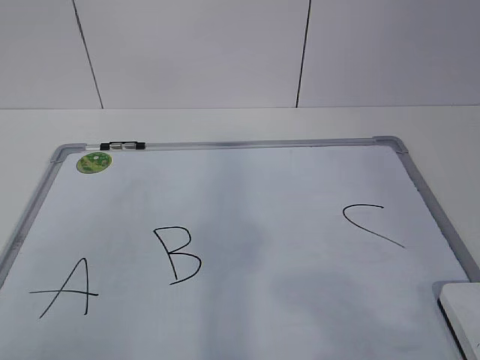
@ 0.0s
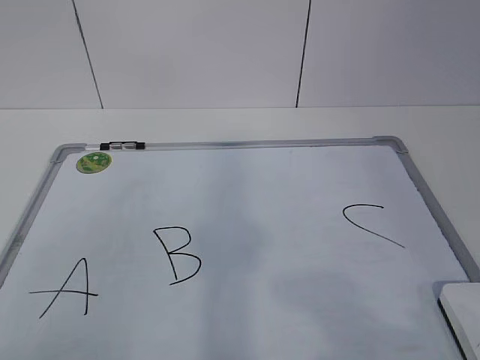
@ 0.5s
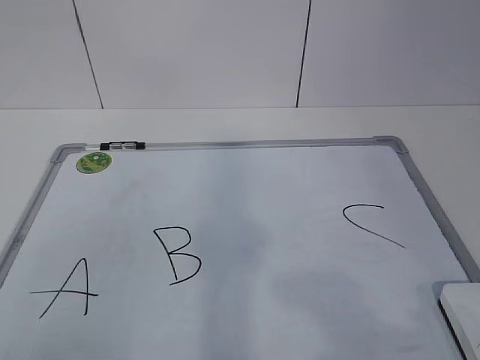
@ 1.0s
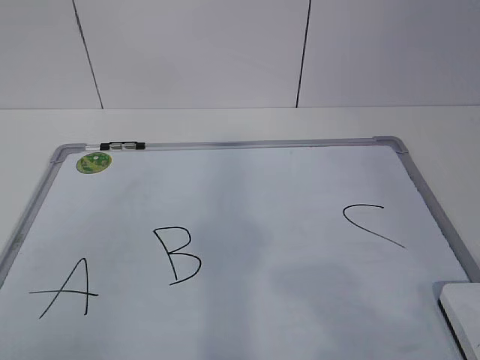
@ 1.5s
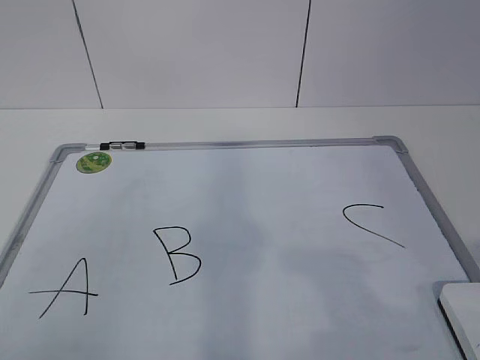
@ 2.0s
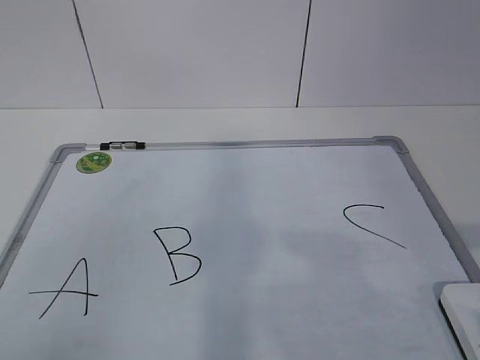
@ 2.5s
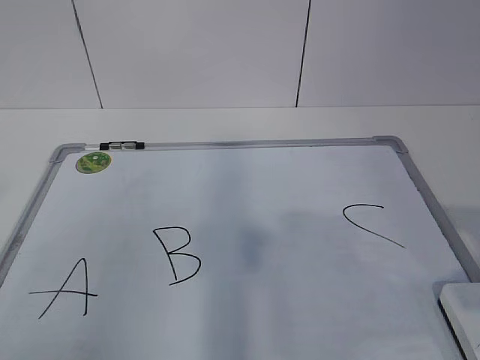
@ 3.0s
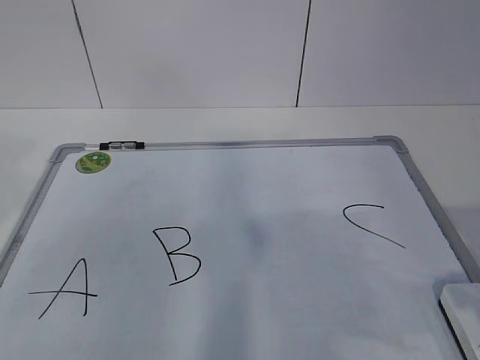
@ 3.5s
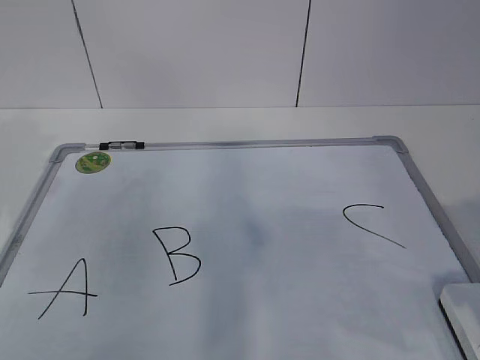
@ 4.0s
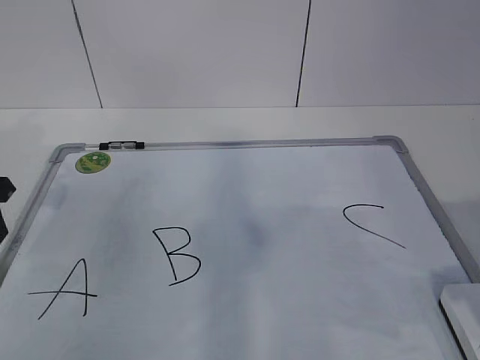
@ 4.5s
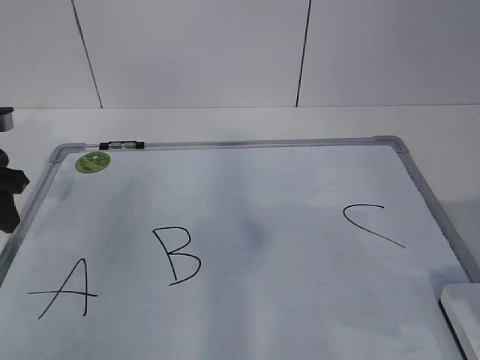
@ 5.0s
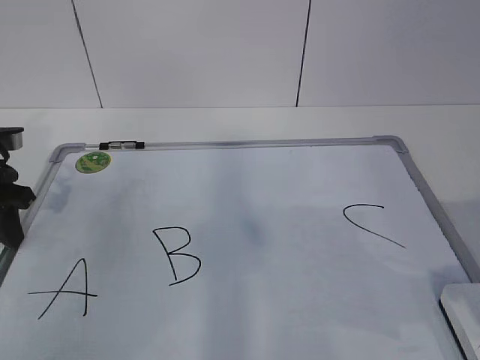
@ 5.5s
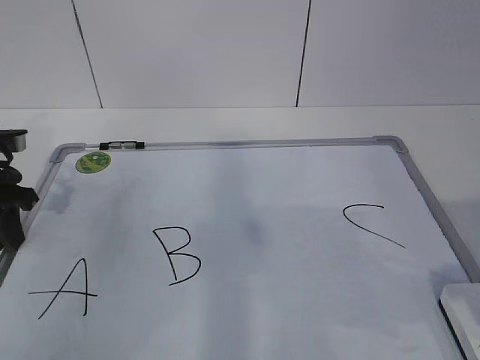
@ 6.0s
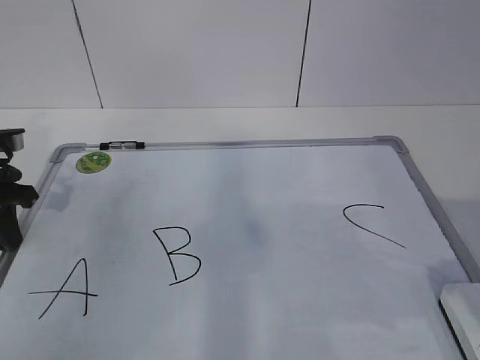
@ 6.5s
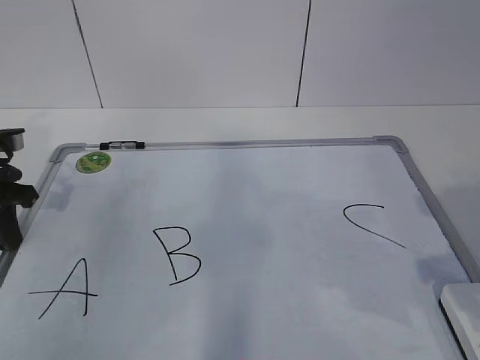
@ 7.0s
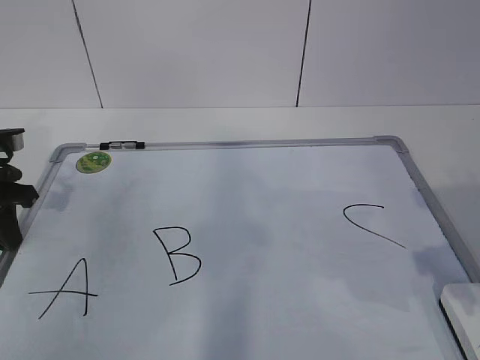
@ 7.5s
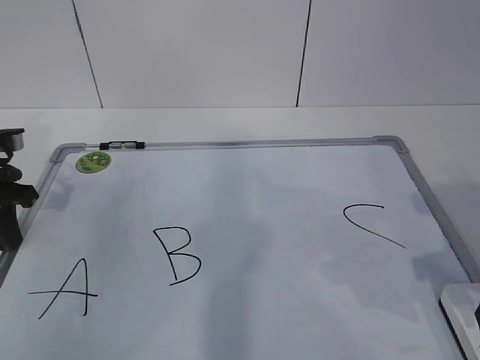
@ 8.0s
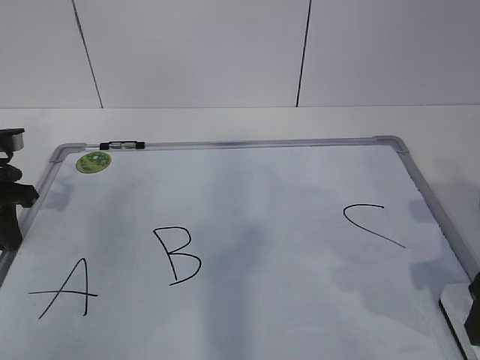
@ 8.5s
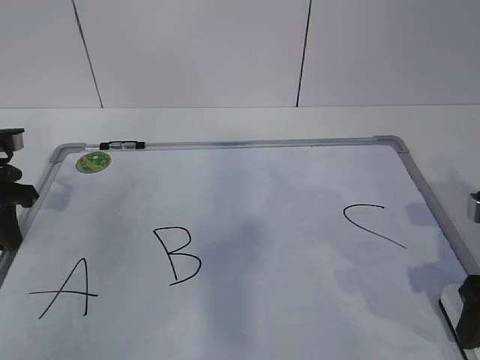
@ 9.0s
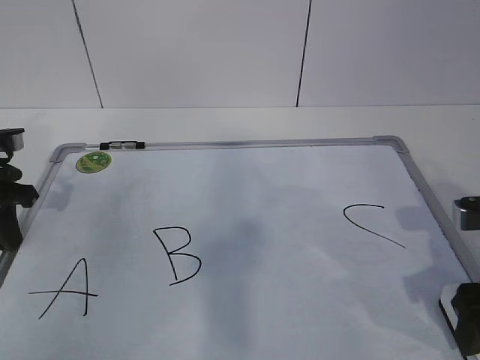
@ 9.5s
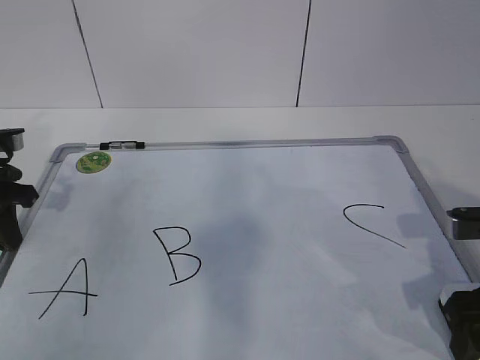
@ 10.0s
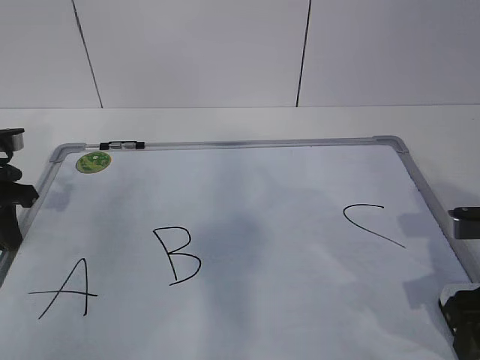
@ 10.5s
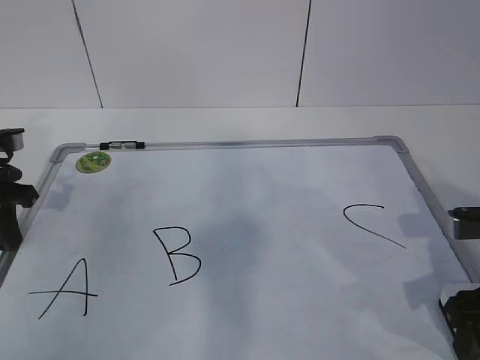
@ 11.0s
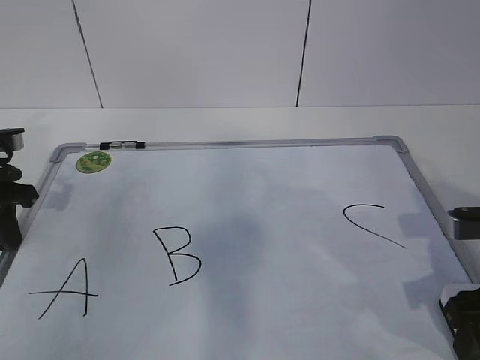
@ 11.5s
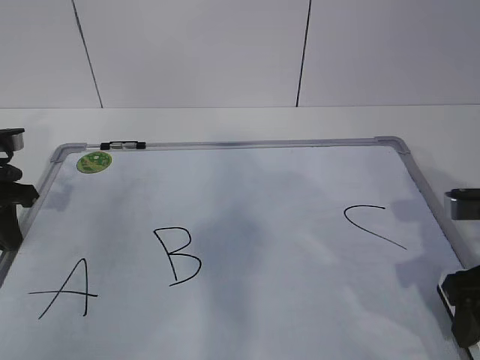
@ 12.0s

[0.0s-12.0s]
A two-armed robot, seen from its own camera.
Task of the whole recording: pick up the eraser on the blackboard and erase the letter "B".
Step, 0.0s to 5.0s: Hold the drawing board steady with your left hand.
2.0s to 4.0s: The left gripper heads forward, covering approximately 30 cm. Meanwhile the right gripper is displaced forward by roughly 10 cm.
4.0s to 6.0s: The left gripper travels downward and forward by some 10 cm, and closes its fingers.
8.0s to 10.0s: The right gripper shifts by about 5 cm.
10.0s to 12.0s: The right gripper closes up.

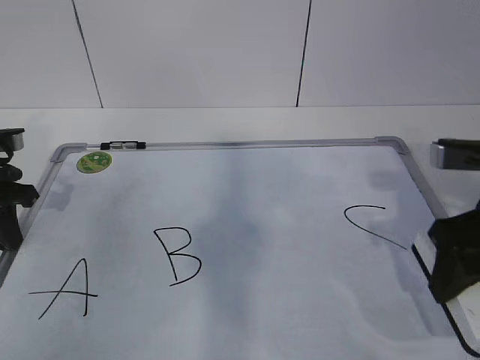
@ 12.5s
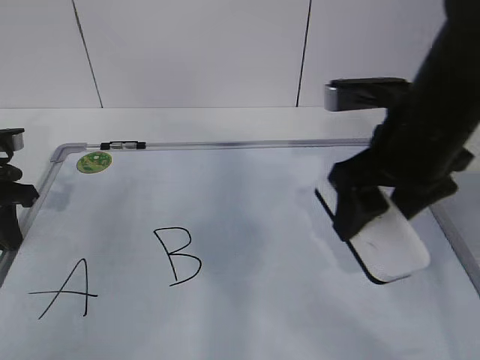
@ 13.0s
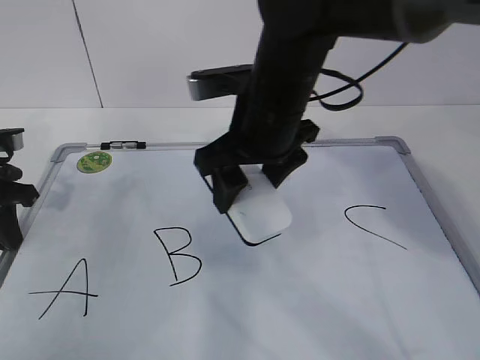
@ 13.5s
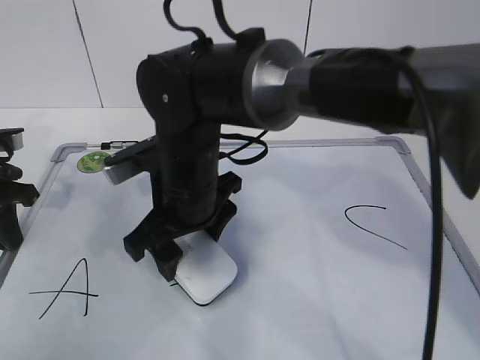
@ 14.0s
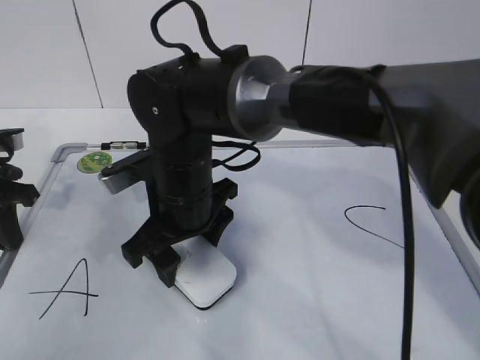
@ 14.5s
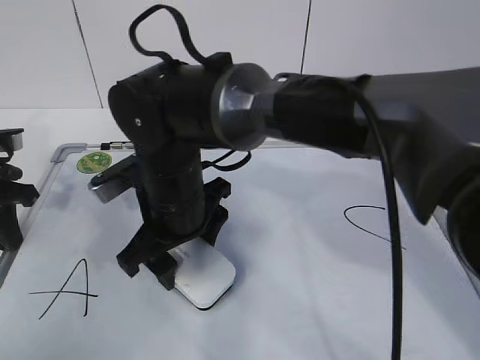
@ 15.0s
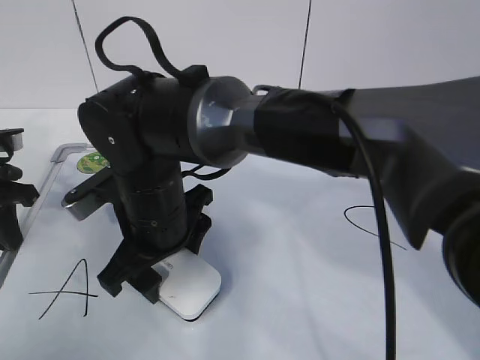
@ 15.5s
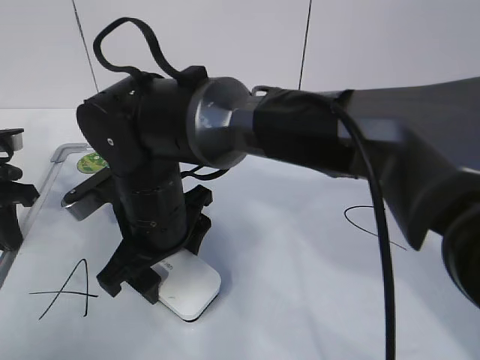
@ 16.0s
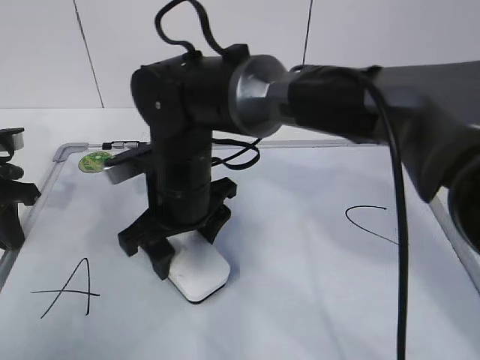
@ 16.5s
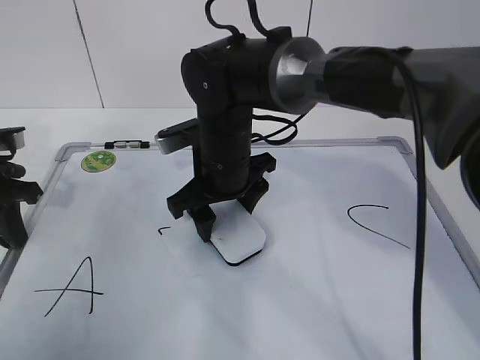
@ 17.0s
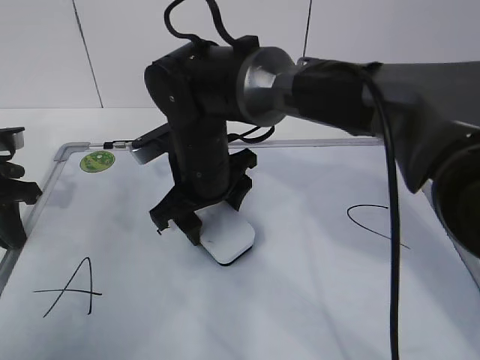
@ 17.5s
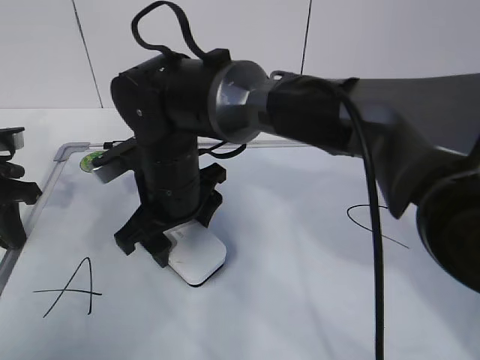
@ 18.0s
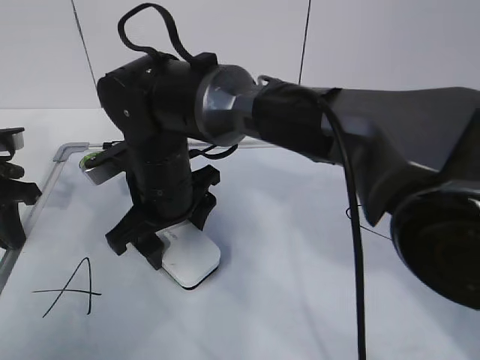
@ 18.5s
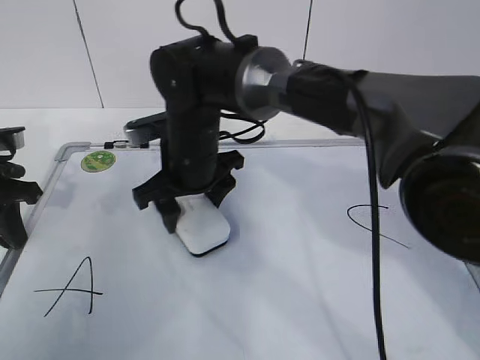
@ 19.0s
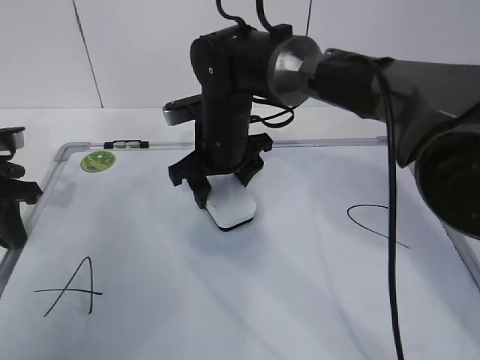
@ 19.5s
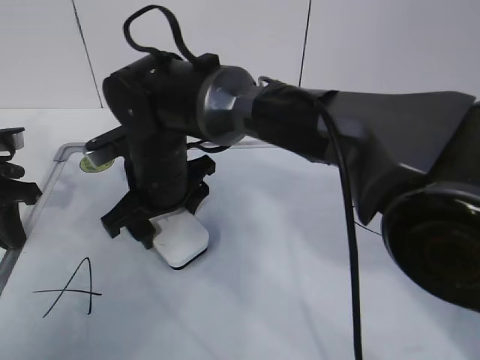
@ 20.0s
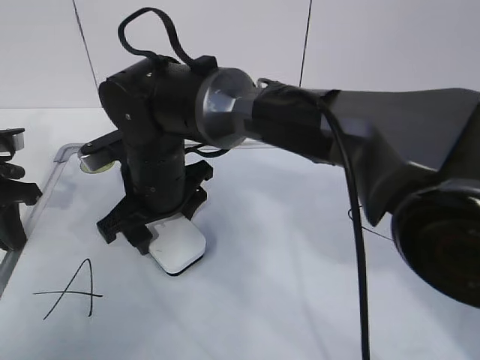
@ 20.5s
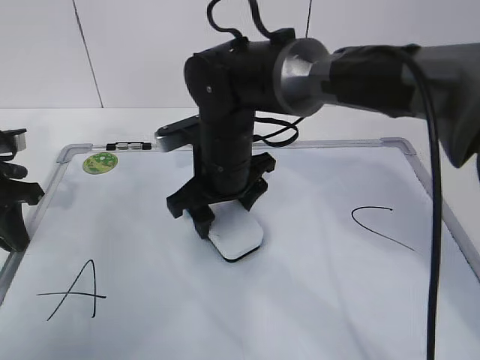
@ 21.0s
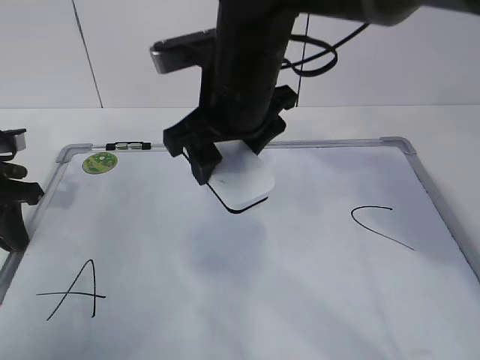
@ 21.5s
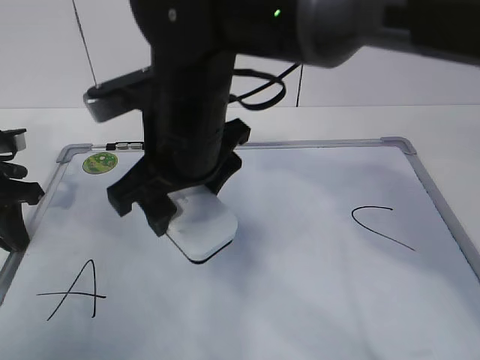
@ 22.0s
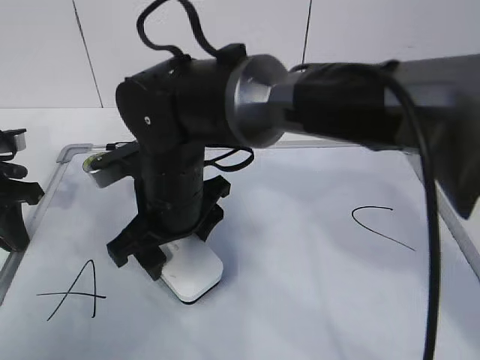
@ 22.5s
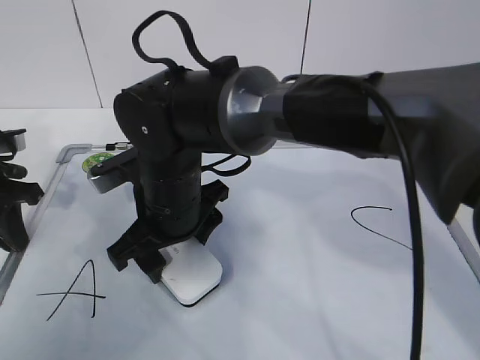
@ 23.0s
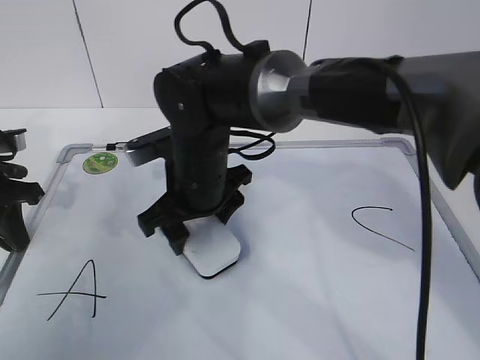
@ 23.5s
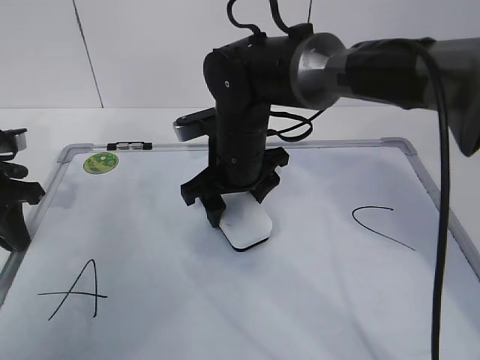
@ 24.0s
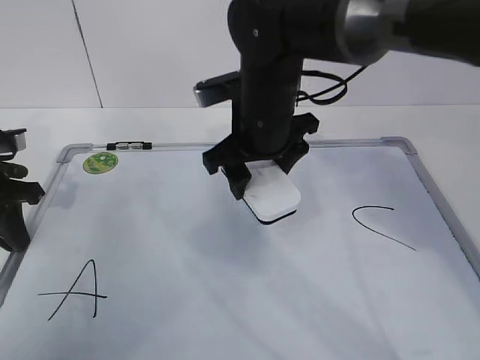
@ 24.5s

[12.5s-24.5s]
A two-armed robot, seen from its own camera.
Task of the whole recording: pick up the eraser on the blackboard and erase the letter "B".
Step, 12.5s to 20.0s: Erase the letter B with your right hand.
12.5s to 14.5s: The right gripper shifts about 30 cm to the left.
14.5s to 16.5s: The grippers stay close to where they were, moving slightly.
18.5s to 20.5s: The right gripper reaches some 10 cm forward, then returns.
20.5s to 22.5s: The right gripper reaches about 10 cm upward, then returns.
22.5s to 24.5s: The right gripper goes roughly 10 cm to the right and forward.

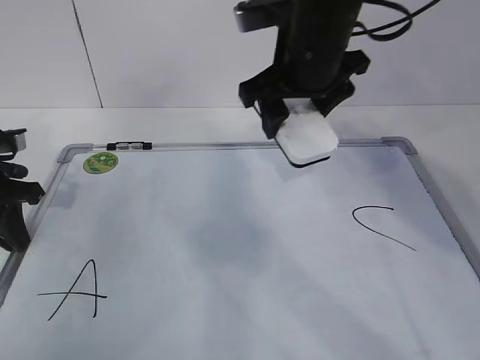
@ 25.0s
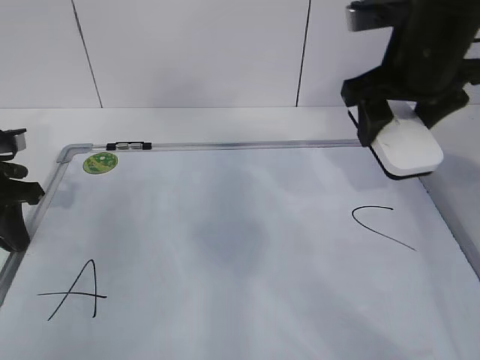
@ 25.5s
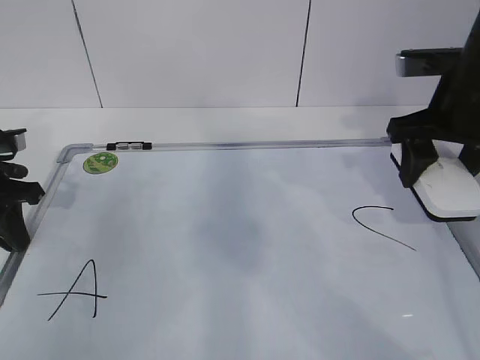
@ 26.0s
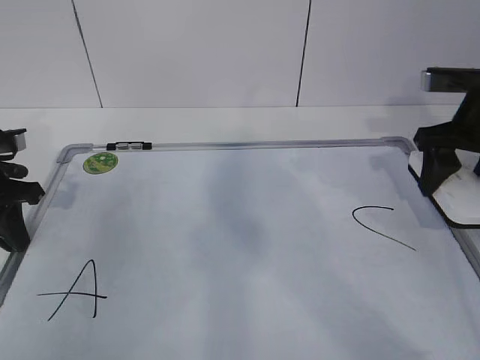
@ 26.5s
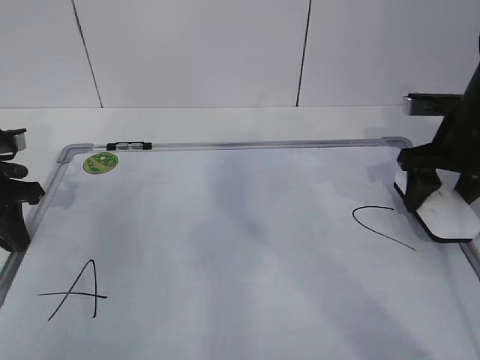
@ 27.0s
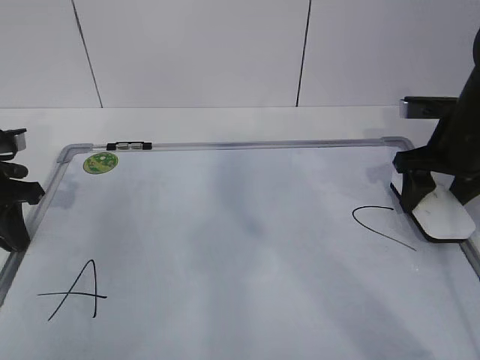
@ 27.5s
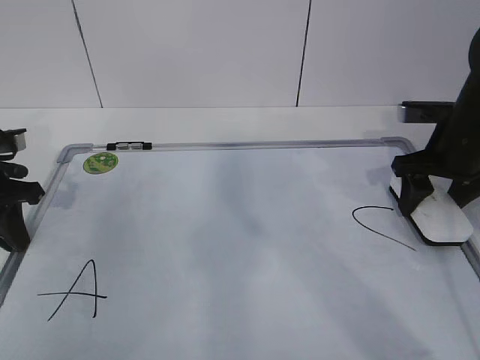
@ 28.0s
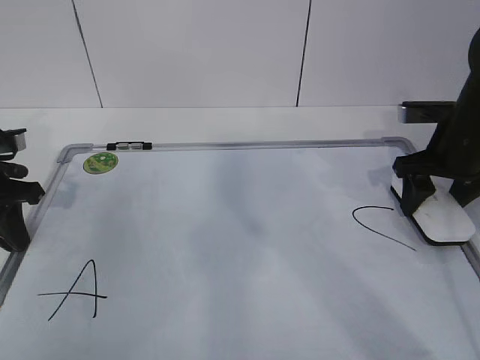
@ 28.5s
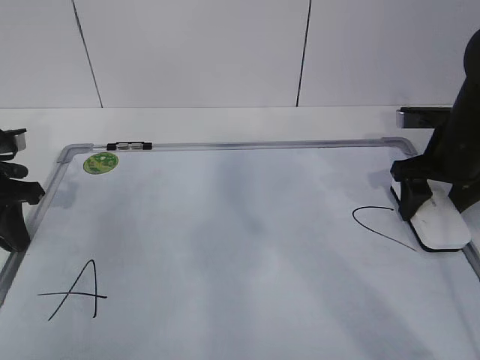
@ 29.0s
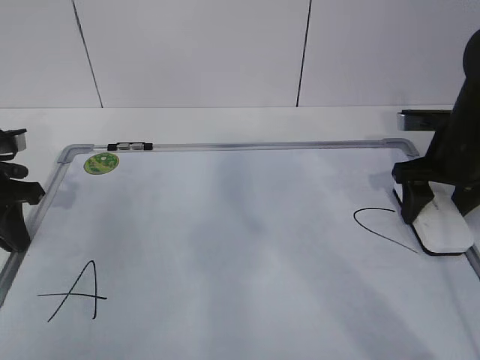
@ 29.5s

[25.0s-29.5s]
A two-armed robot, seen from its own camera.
Task of the whole recording: pick up the eraser on the blackboard and erase the letter "B".
25.0s to 27.0s: The right gripper shifts some 20 cm to the right and downward.
27.0s to 29.5s: The grippers move only a little.
